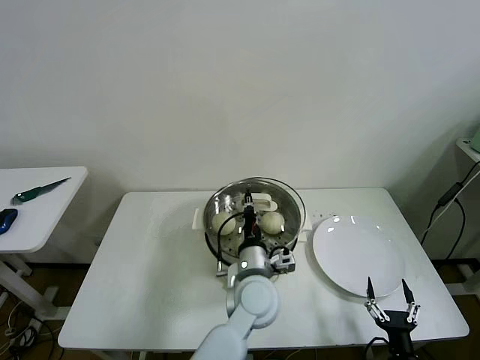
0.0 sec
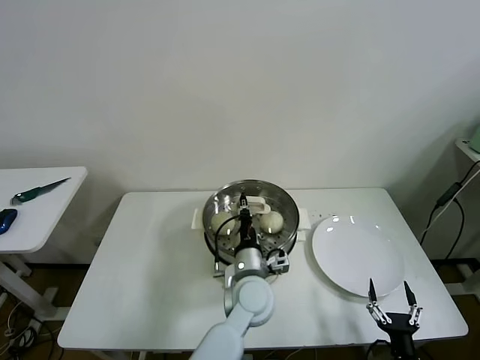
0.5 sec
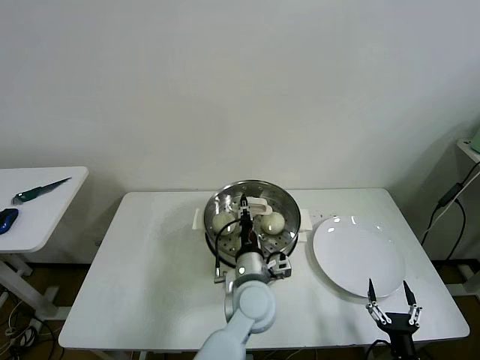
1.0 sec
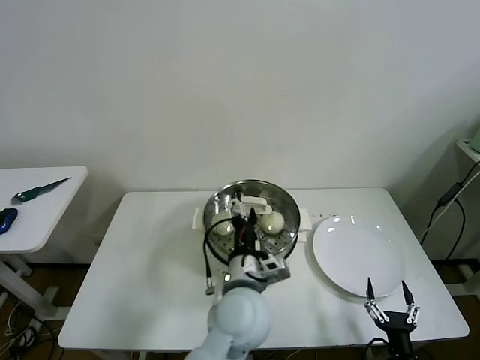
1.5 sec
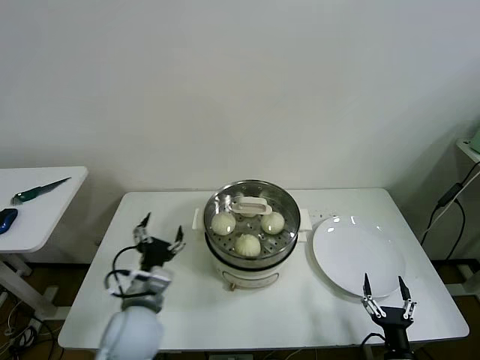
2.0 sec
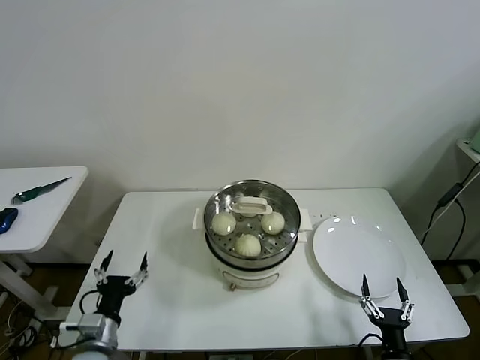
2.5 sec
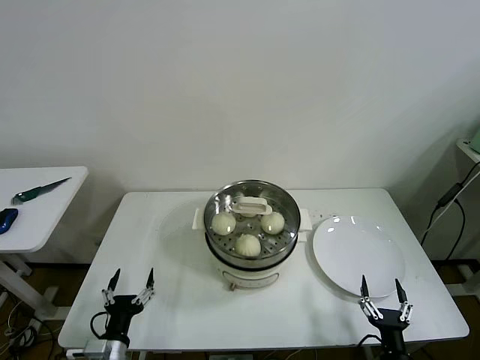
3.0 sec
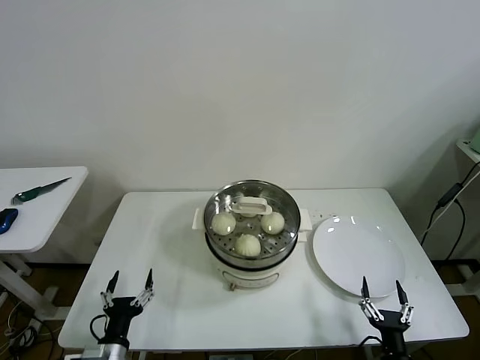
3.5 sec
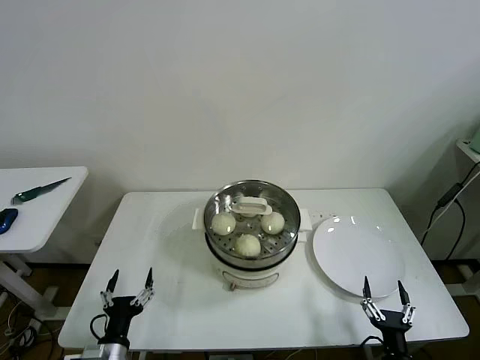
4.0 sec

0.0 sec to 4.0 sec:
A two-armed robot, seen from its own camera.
Task of the whole recording: take steamed baozi put them in steamer then cover it.
0.0 sec to 2.0 sec: The left gripper moves to the left, some 20 cm, and opens up.
2.0 sec to 4.0 sec: The left gripper goes approximately 20 cm downward, to the left and backward.

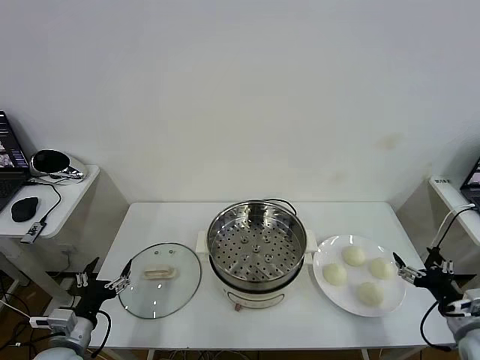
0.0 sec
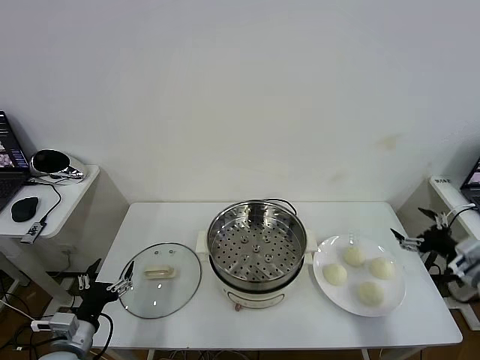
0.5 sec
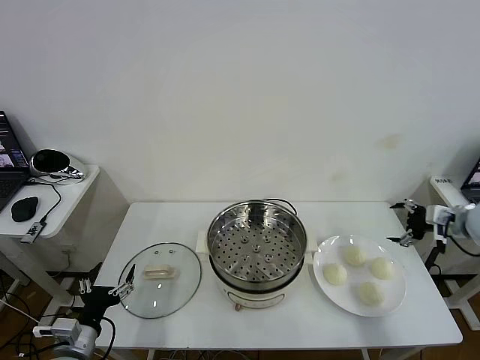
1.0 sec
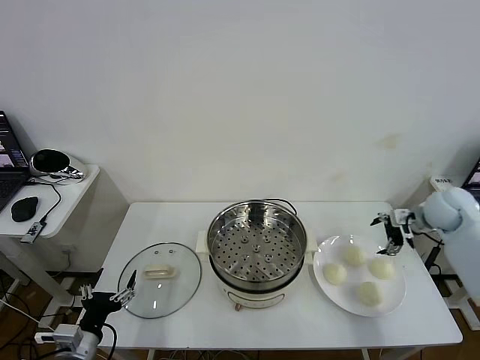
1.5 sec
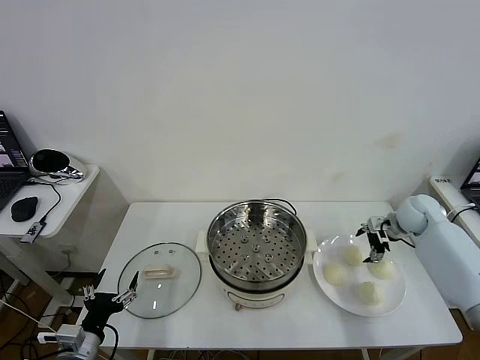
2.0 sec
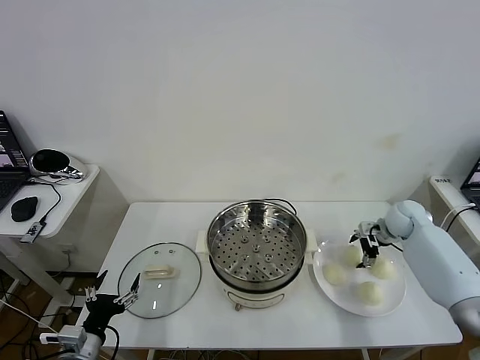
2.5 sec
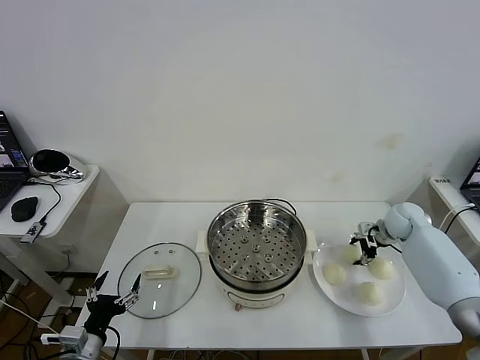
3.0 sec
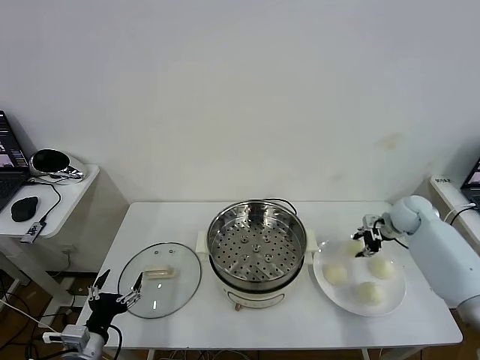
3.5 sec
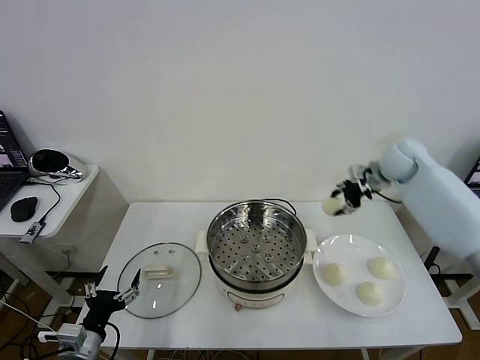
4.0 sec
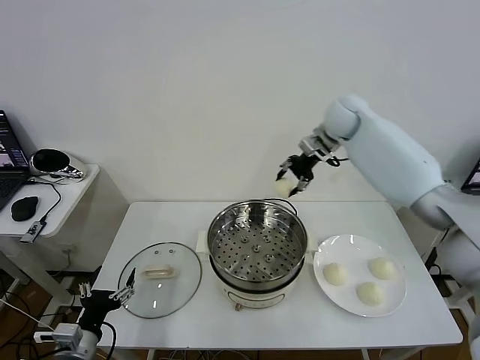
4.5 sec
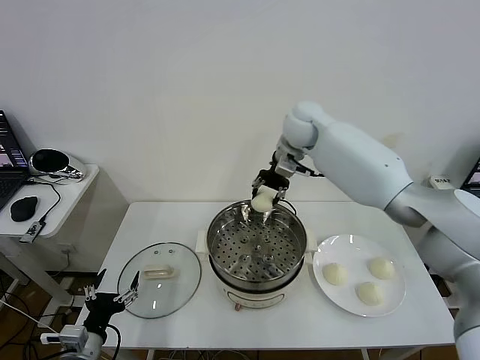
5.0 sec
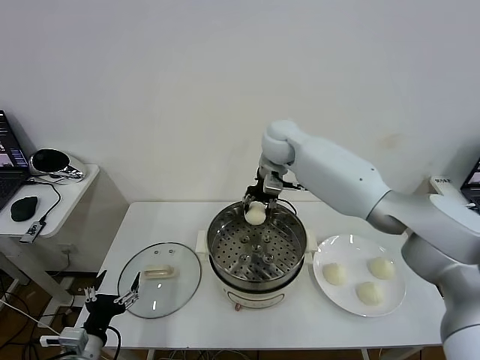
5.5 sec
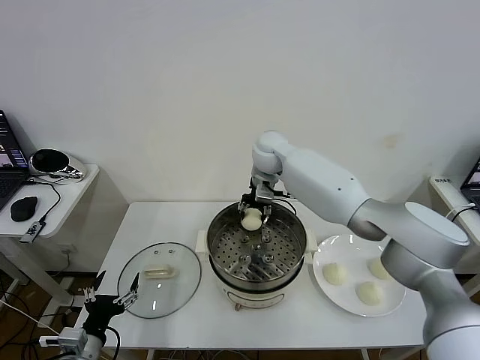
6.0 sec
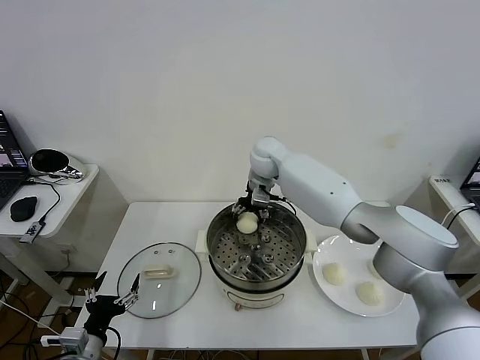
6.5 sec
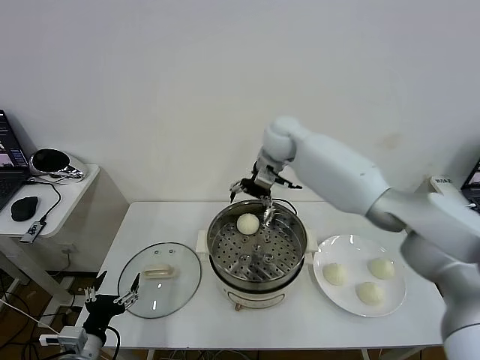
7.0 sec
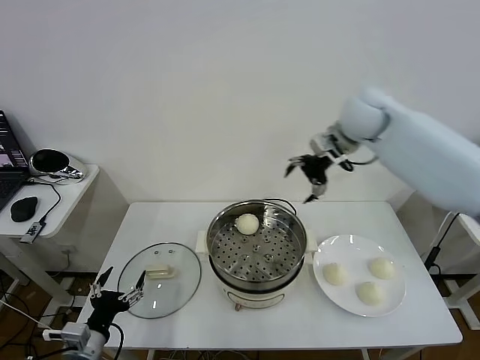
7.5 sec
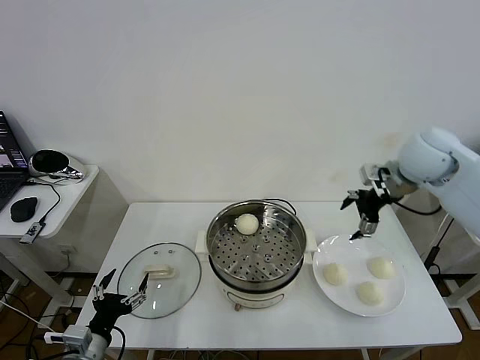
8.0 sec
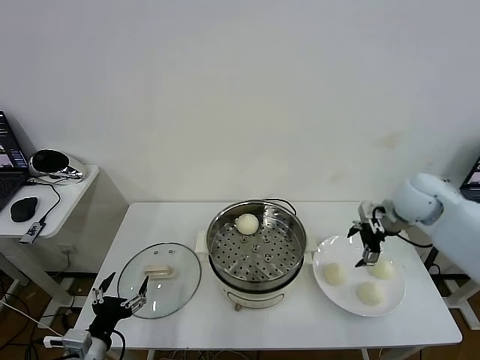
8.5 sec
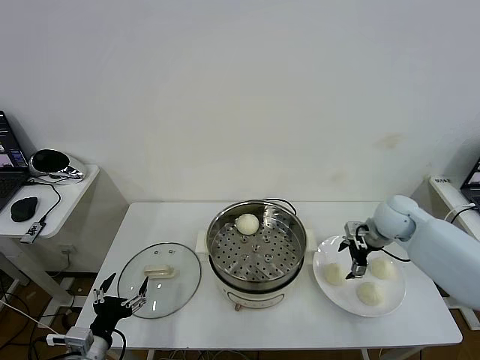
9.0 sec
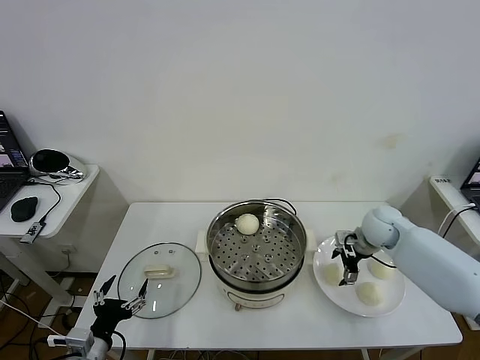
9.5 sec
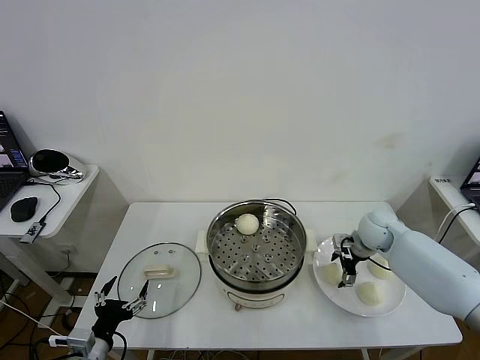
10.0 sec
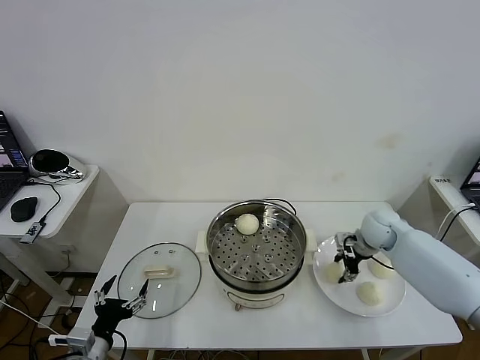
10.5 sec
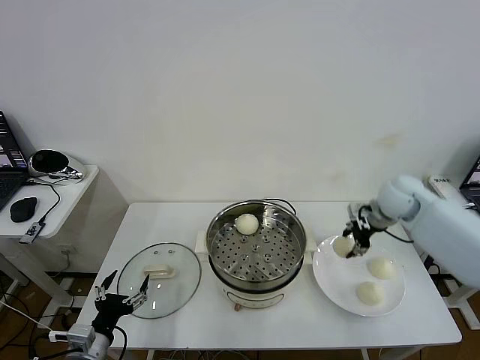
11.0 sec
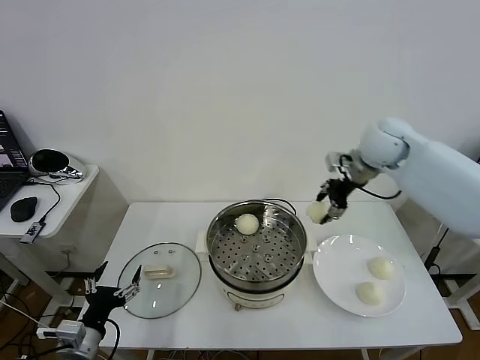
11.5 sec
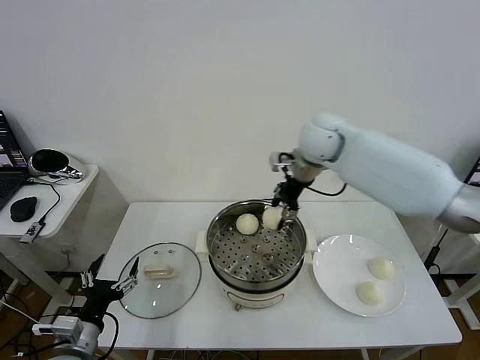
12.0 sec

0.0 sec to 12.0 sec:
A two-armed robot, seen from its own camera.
Task of the whole recording: take steamed baozi put them in steamer then cover it.
Step, 0.0 sec to 2.5 sec: Grasp the baozi in the plate with right gripper.
Step, 3.5 sec to 6.5 sec: Place the baozi on the steamer with right gripper.
Step, 7.0 sec to 10.0 sec: Grasp the baozi in the plate with right gripper.
2.0 sec to 4.0 sec: The right gripper goes some 20 cm upward and to the left, and closes up.
4.0 sec to 6.0 sec: The right gripper is displaced to the left by some 30 cm.
6.0 sec to 8.0 sec: The right gripper is displaced to the right and backward by some 30 cm, and opens up.
8.0 sec to 10.0 sec: The right gripper travels downward by some 20 cm.
10.0 sec to 12.0 sec: The right gripper is displaced upward and to the left by roughly 30 cm, and closes its fingers.

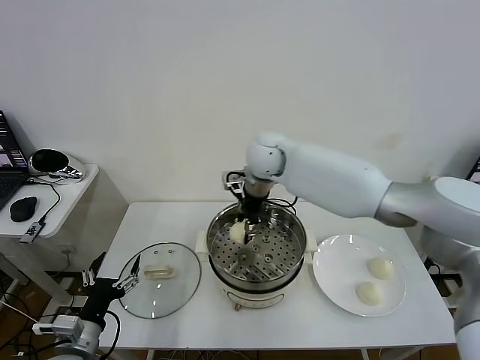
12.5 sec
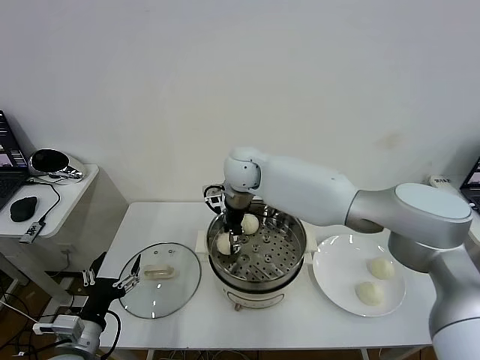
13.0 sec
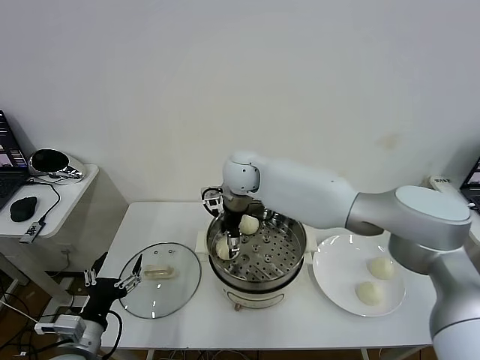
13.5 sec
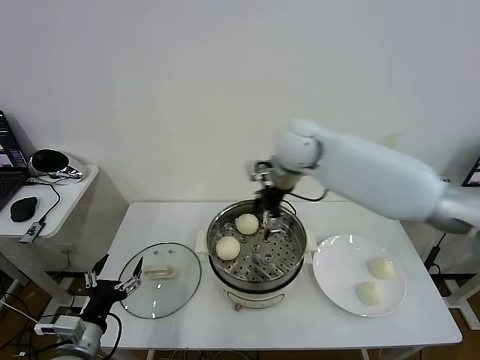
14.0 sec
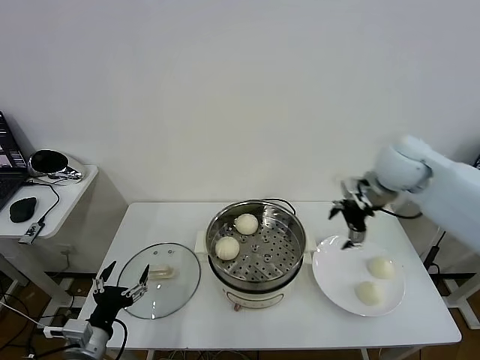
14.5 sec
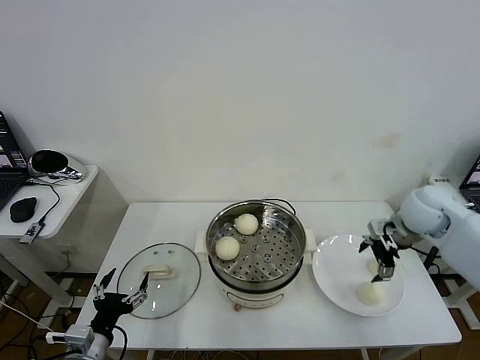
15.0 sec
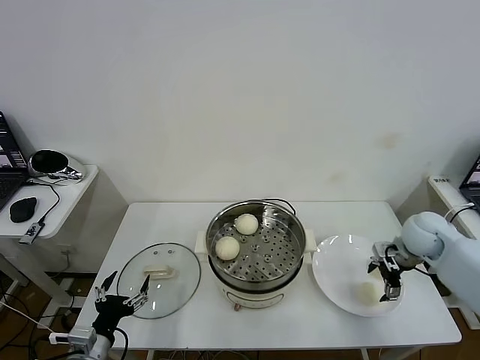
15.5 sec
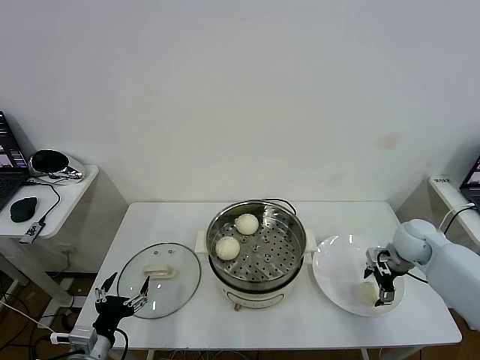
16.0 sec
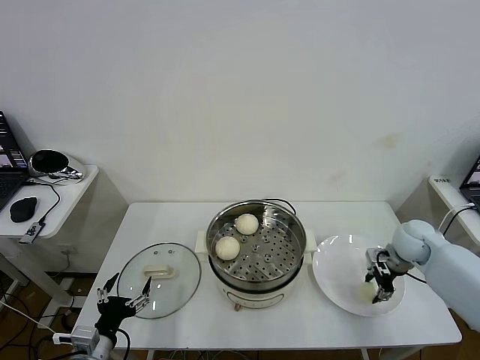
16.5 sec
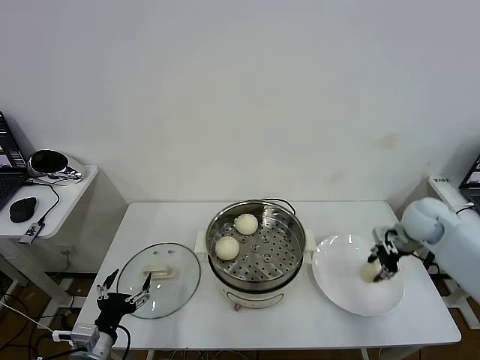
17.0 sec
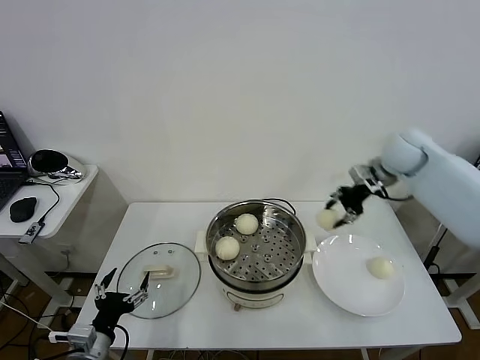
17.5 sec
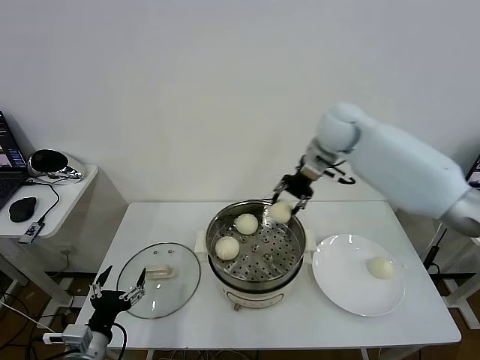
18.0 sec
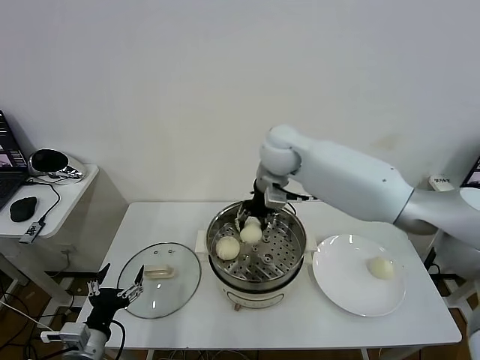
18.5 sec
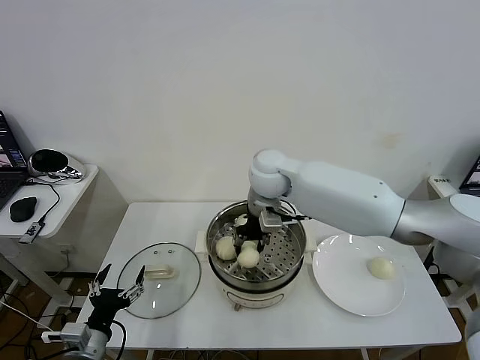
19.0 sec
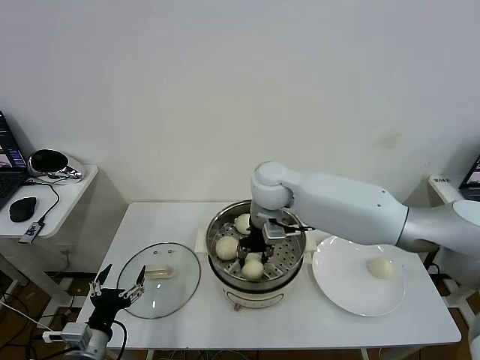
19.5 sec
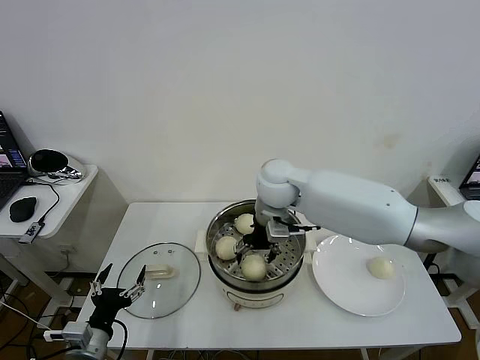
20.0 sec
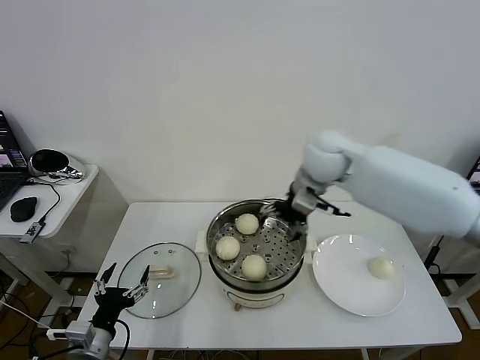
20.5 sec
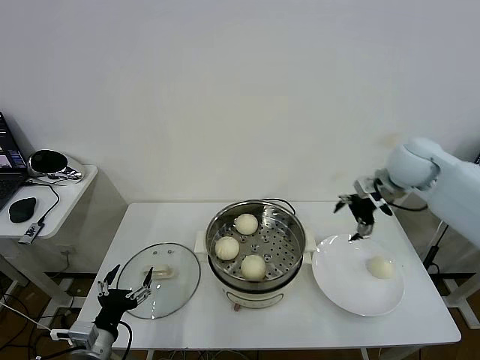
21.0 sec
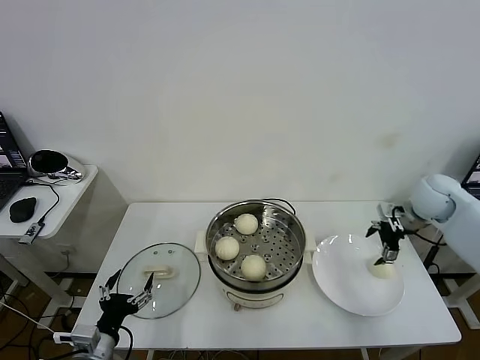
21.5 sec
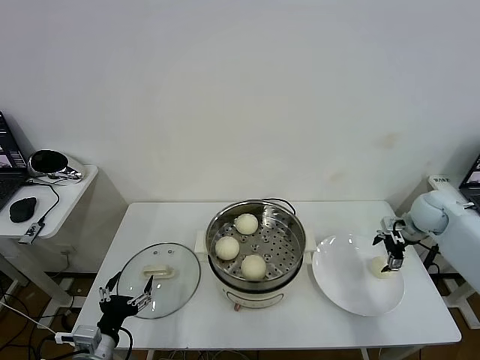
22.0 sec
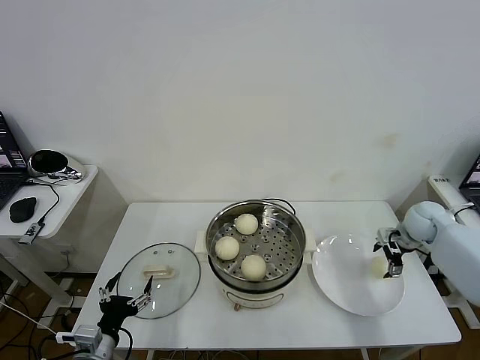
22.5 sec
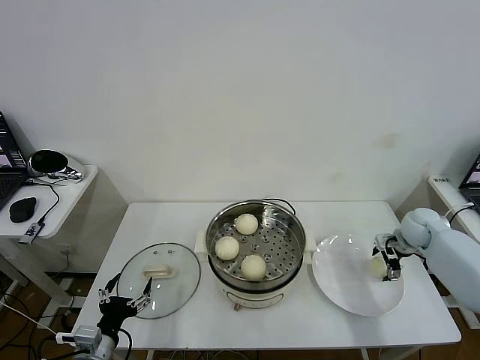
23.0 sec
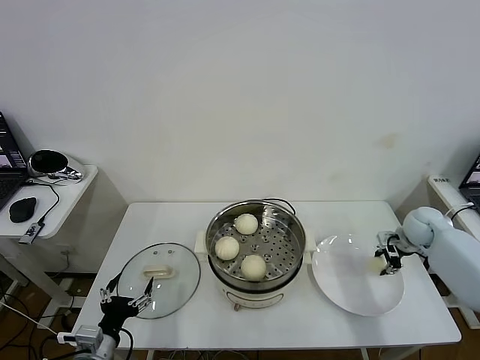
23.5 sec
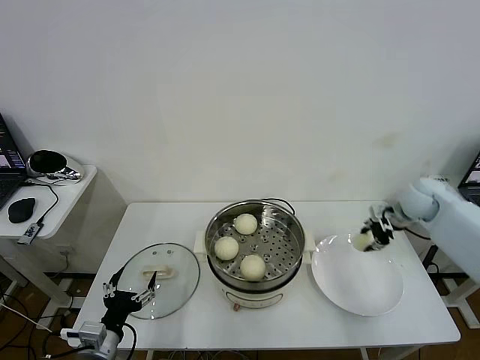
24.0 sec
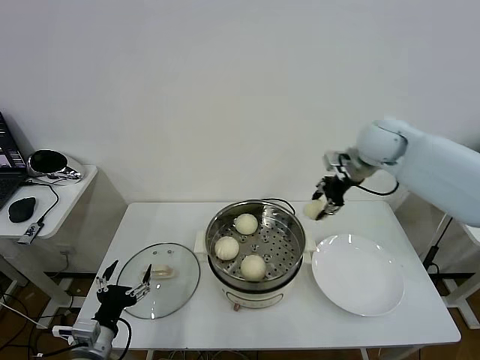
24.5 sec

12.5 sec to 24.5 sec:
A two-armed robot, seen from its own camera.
Task of the whole recording: take steamed baozi put them in steamer then cover it.
Step, 14.0 sec to 16.5 sec: Grasp the baozi in the plate with right gripper.
Step, 17.0 sec to 20.0 sec: Place the baozi on the steamer with right gripper.
Step, 20.5 sec to 23.0 sec: Grasp the baozi in the plate with right gripper.
12.5 sec to 14.5 sec: The right gripper is displaced to the right by about 25 cm, and opens.
14.5 sec to 16.5 sec: The right gripper heads downward and to the right, covering some 20 cm, and closes.
16.5 sec to 18.5 sec: The right gripper heads to the left and upward, covering some 40 cm.
18.5 sec to 20.5 sec: The right gripper is displaced to the right by some 10 cm, and opens its fingers.
20.5 sec to 22.5 sec: The right gripper goes some 35 cm to the right and downward.
22.5 sec to 24.5 sec: The right gripper shifts some 30 cm upward and to the left, and closes.
